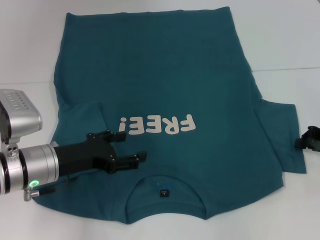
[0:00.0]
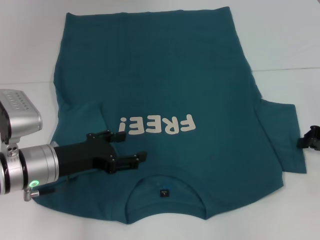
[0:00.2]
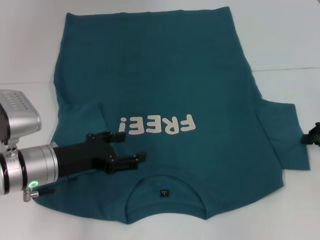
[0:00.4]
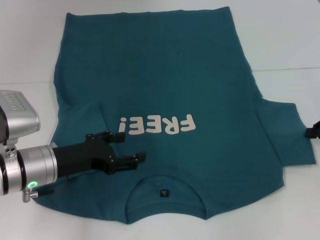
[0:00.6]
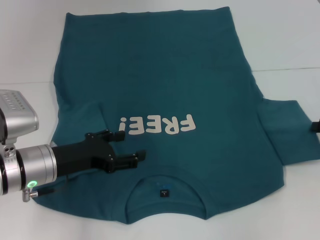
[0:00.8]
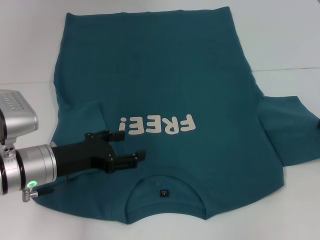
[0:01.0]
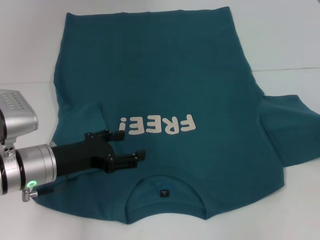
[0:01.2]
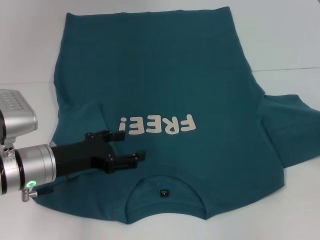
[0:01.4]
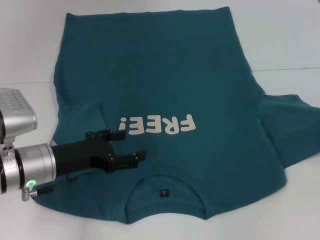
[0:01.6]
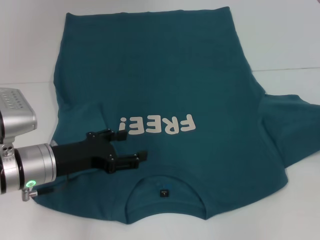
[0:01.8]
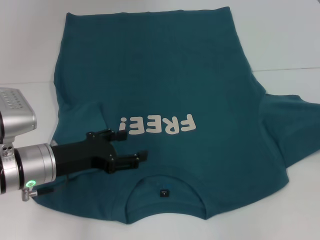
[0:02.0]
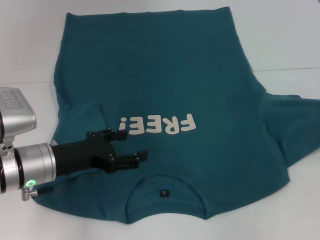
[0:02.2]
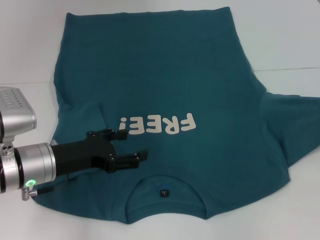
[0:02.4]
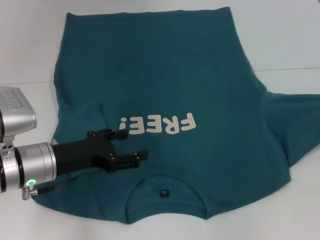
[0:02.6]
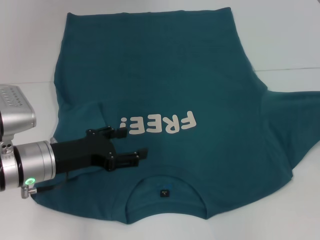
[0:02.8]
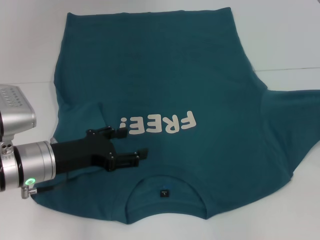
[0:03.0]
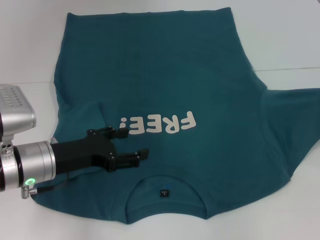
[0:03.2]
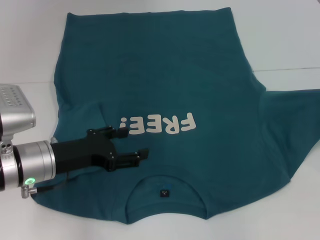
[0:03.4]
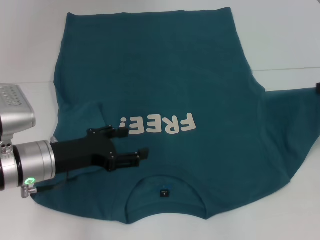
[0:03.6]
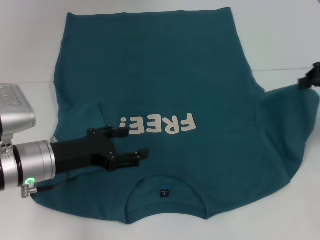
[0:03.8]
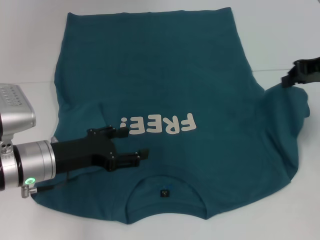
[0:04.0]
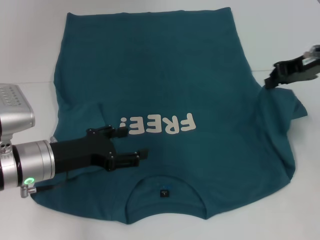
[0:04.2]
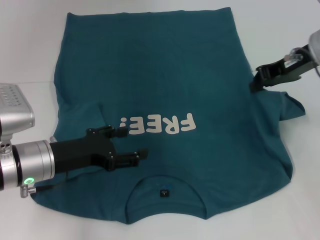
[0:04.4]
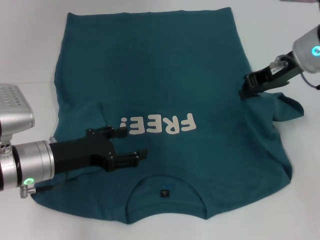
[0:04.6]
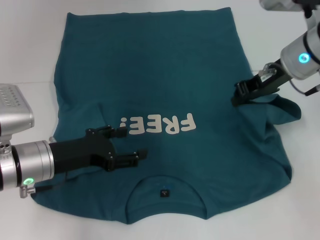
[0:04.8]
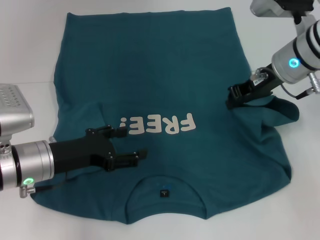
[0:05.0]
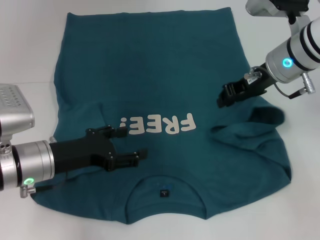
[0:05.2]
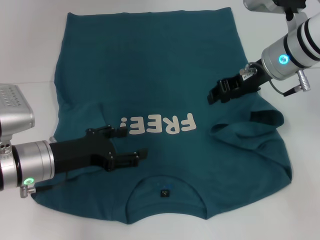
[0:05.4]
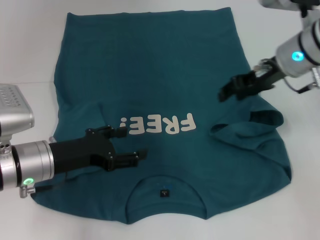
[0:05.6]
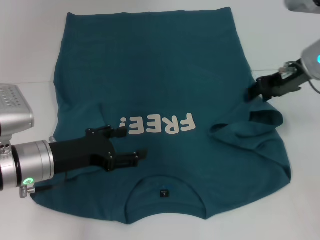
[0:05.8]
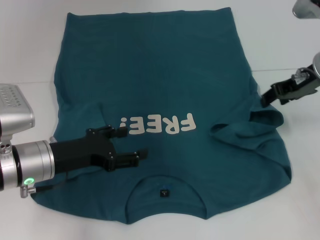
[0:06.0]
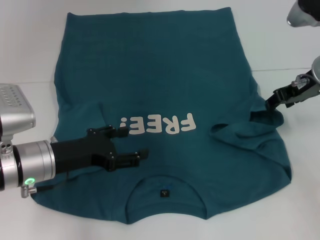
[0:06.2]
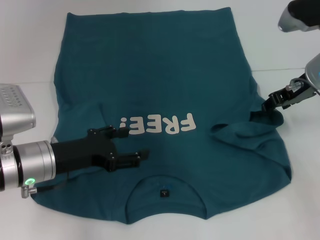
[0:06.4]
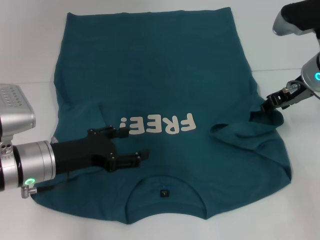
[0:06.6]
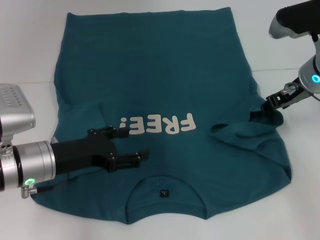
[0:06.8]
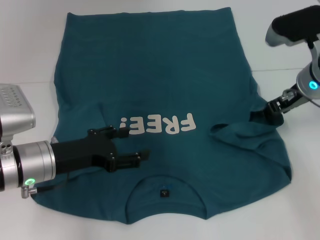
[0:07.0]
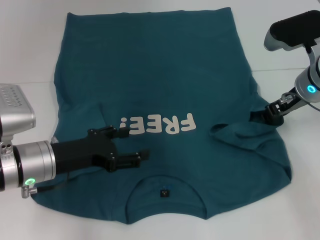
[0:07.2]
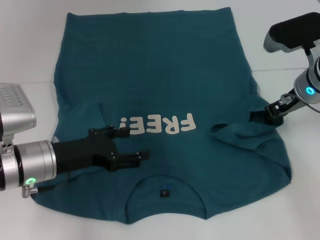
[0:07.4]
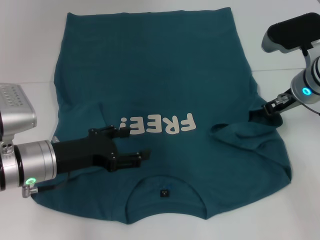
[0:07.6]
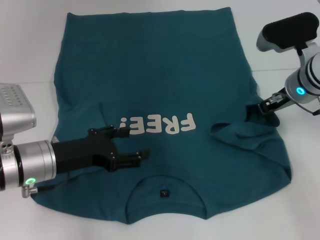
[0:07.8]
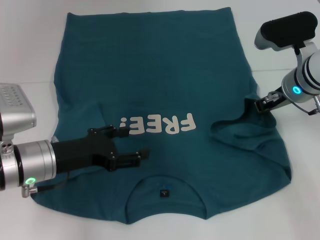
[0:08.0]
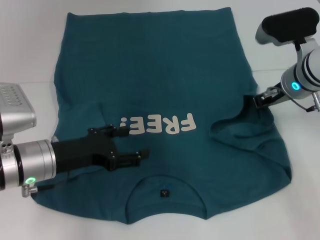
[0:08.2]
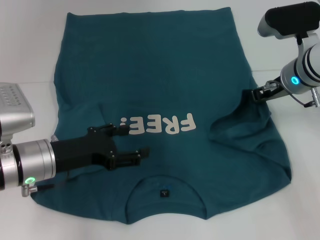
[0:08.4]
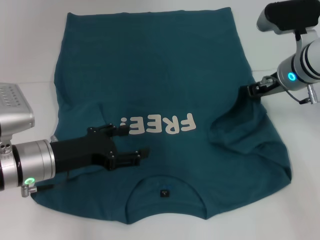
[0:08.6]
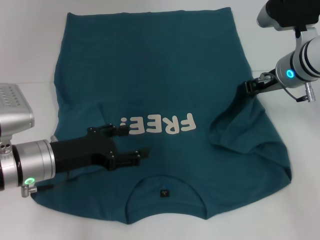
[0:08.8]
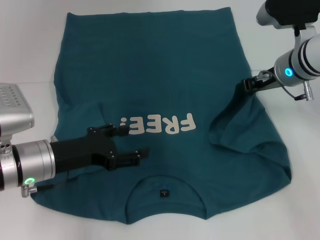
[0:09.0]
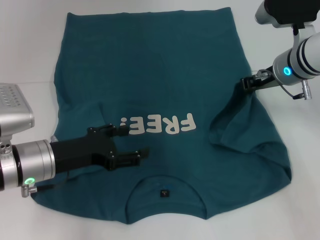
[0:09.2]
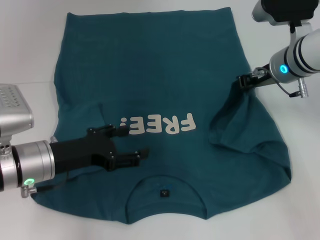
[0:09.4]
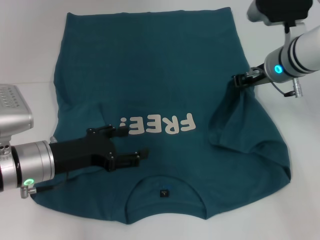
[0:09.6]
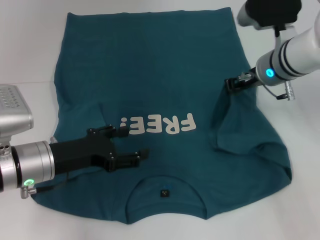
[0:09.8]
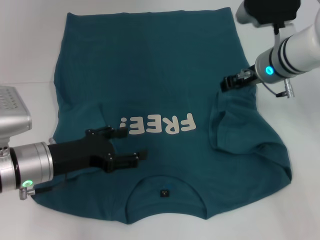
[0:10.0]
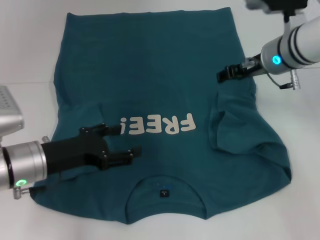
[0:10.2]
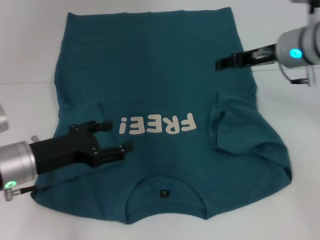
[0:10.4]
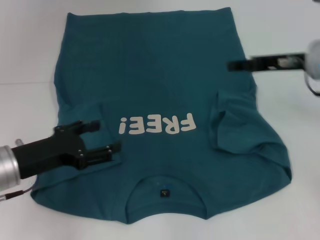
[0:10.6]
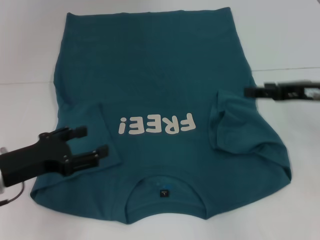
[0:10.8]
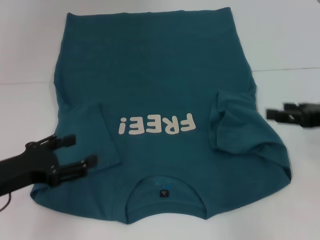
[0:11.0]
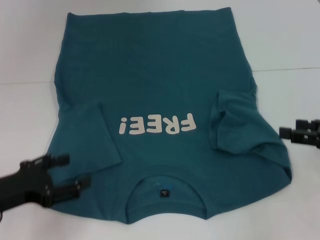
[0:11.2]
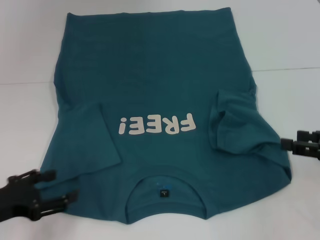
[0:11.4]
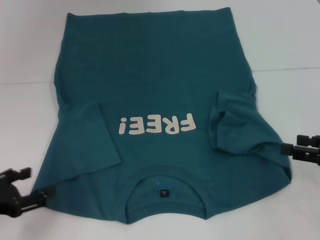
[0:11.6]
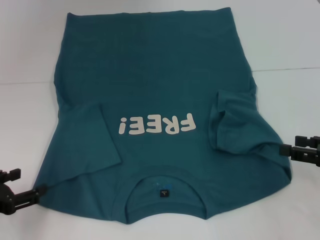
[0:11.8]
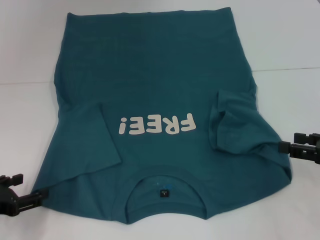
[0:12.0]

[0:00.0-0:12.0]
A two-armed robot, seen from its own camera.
0:00.0 to 0:01.6: The right gripper goes roughly 5 cm upward.
0:01.6 to 0:03.0: The right gripper shifts about 5 cm upward.
0:03.0 to 0:04.4: The right gripper is displaced to the left and forward by approximately 15 cm.
0:04.4 to 0:06.0: The right gripper opens.
0:06.0 to 0:07.6: The right gripper moves some 5 cm.
0:07.6 to 0:09.0: The right gripper closes up.
0:09.0 to 0:10.4: The right gripper opens its fingers.
0:10.4 to 0:12.0: The left gripper moves to the left and backward, about 10 cm, while the right gripper travels backward, to the right and downward by roughly 25 cm.

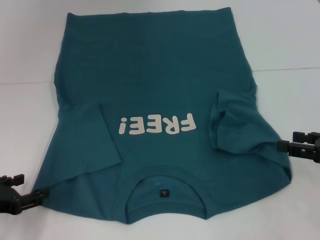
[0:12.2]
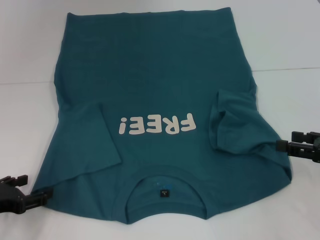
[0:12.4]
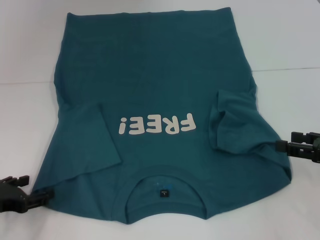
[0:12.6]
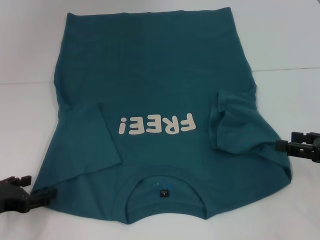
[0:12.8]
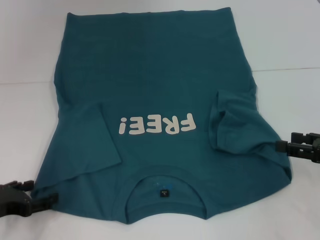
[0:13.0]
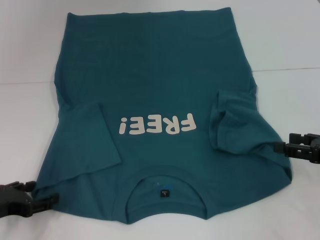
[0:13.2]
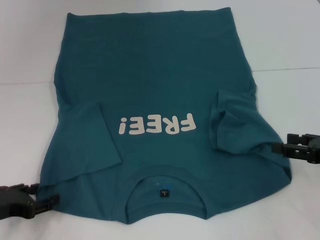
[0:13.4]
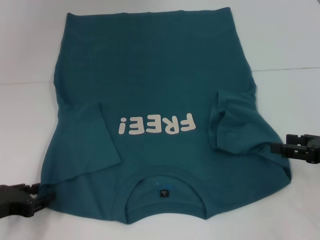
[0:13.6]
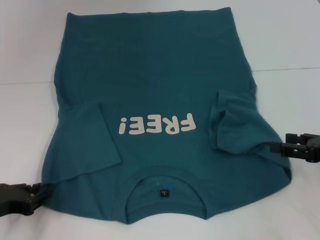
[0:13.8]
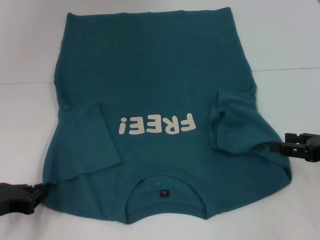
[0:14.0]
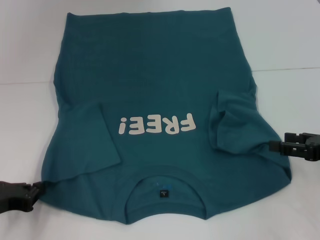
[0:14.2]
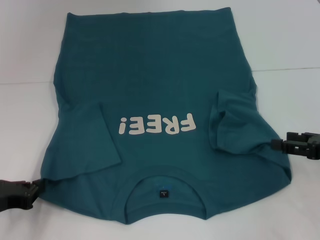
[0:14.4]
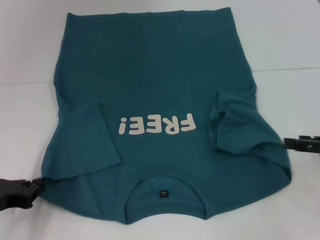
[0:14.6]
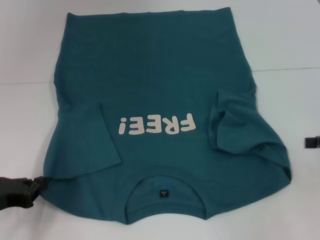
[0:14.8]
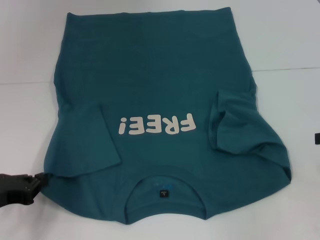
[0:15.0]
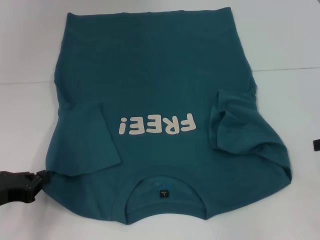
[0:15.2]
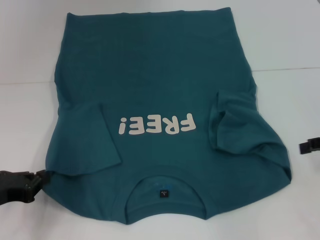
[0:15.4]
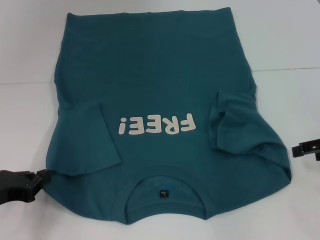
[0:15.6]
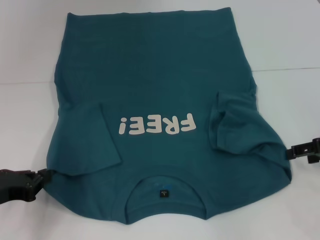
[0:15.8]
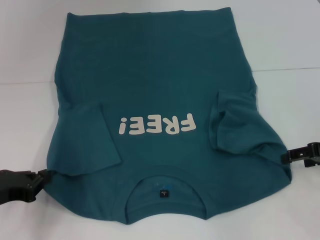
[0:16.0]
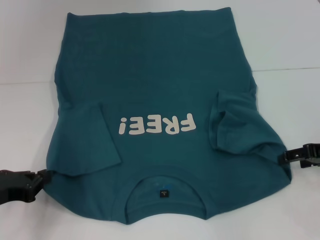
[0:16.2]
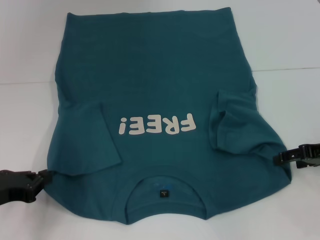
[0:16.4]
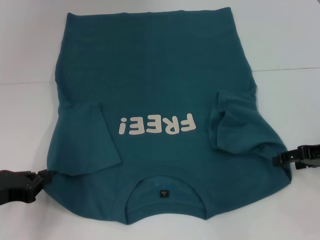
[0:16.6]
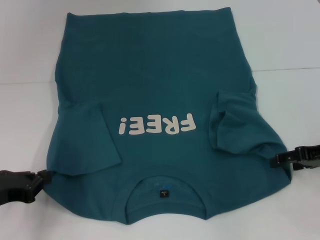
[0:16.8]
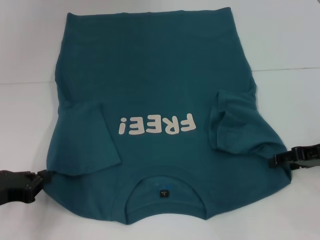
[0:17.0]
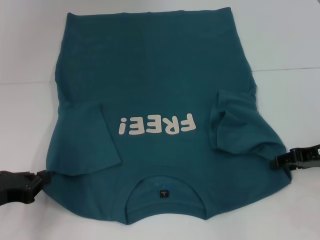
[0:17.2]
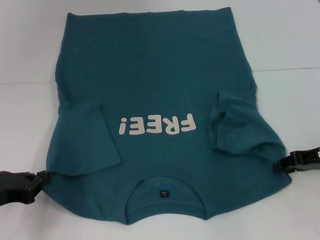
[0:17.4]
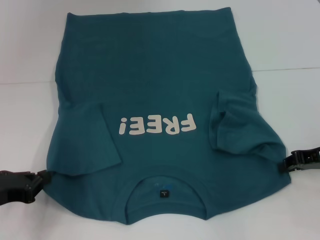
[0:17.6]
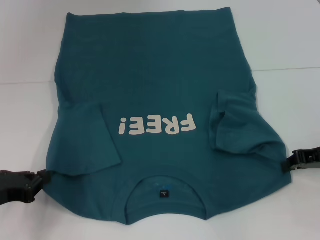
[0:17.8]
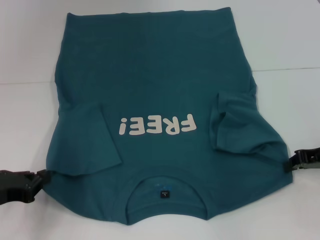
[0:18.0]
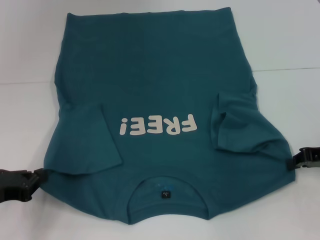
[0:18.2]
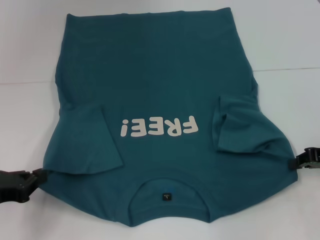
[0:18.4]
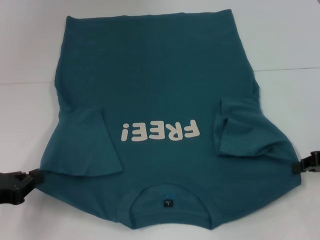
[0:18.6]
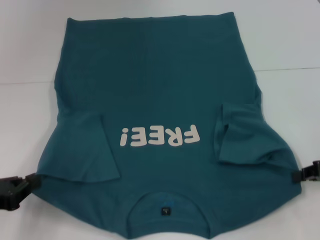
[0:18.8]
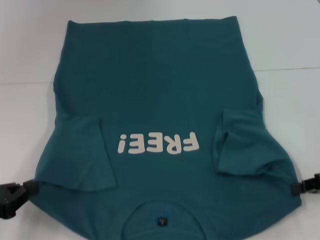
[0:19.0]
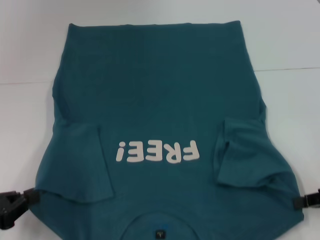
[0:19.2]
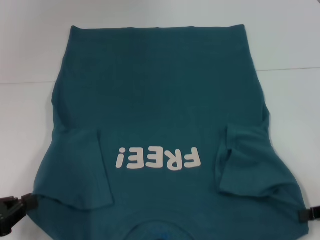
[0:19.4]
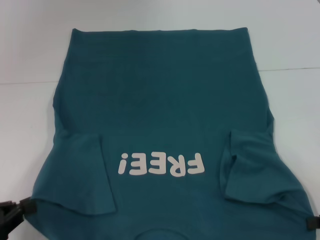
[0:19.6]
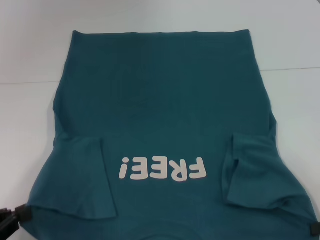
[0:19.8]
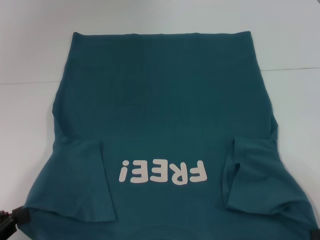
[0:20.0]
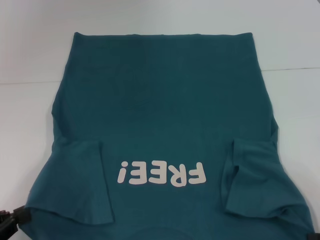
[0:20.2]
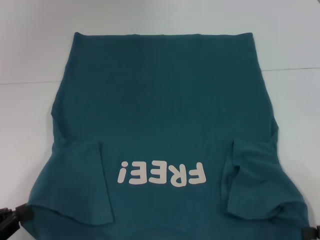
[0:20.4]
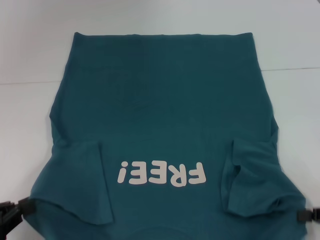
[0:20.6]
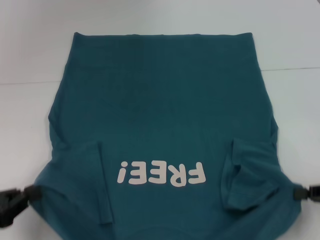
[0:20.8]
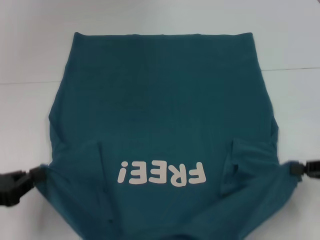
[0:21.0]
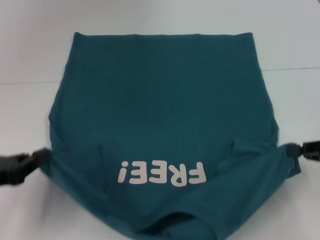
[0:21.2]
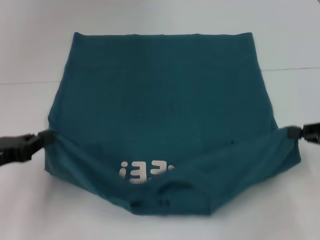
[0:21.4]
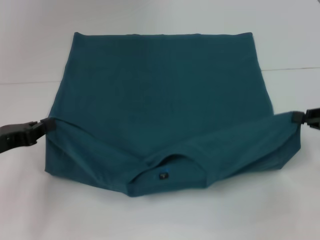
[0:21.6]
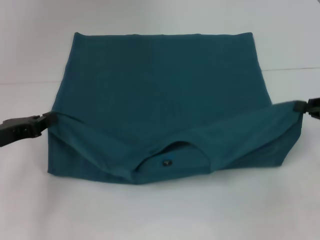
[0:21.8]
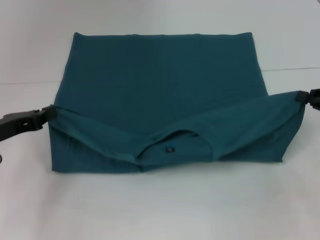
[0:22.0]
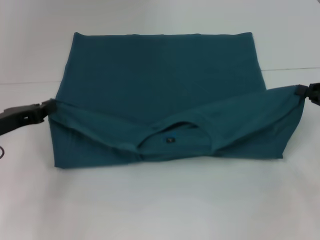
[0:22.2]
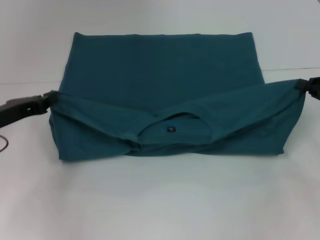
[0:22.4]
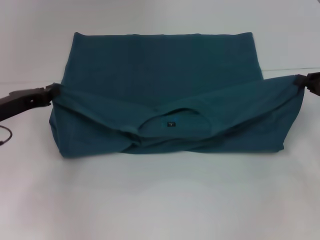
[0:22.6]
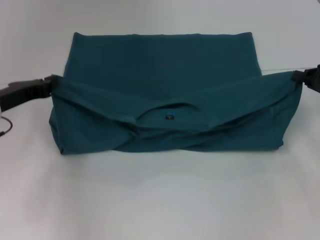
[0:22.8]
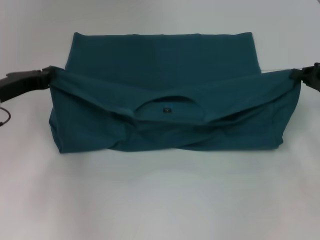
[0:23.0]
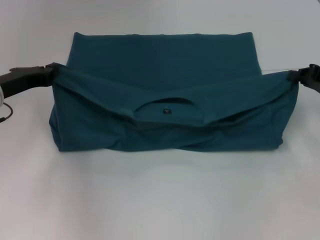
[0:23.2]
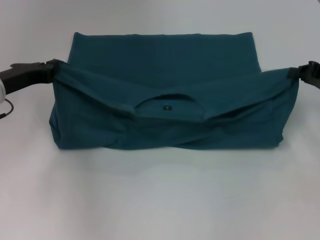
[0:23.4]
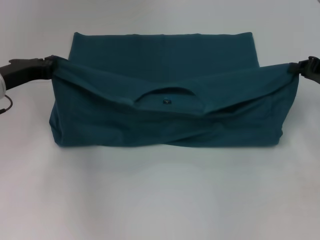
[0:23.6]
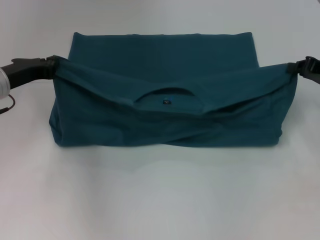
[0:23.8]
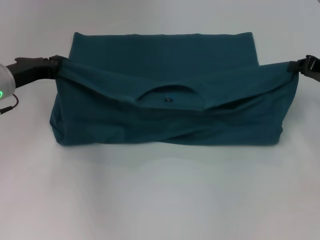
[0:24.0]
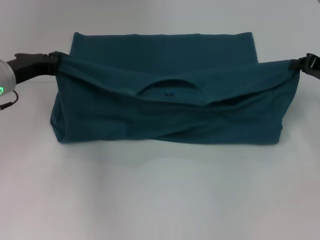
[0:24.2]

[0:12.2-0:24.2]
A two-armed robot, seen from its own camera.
Step, 0:13.6 to 0:14.2: Grab the bottom left corner with your left hand.
Step, 0:14.4 to 0:18.0: Grab the bottom right corner with your right hand.
0:12.2 to 0:13.8: The grippers make only small movements.
0:13.8 to 0:15.2: The left gripper closes its fingers. Meanwhile the right gripper is displaced upward by approximately 5 cm.
0:15.2 to 0:16.6: The right gripper travels downward and to the left by about 10 cm.
0:16.6 to 0:18.2: The right gripper closes its fingers.
0:18.2 to 0:19.8: The right gripper goes approximately 15 cm backward. Meanwhile the left gripper is displaced backward by some 10 cm.
0:19.8 to 0:21.2: Both grippers move forward, roughly 5 cm.
0:21.2 to 0:22.6: The right gripper goes about 10 cm forward, while the left gripper moves forward, approximately 10 cm.
0:22.6 to 0:24.2: The right gripper moves roughly 5 cm. Meanwhile the left gripper shifts about 5 cm forward.
